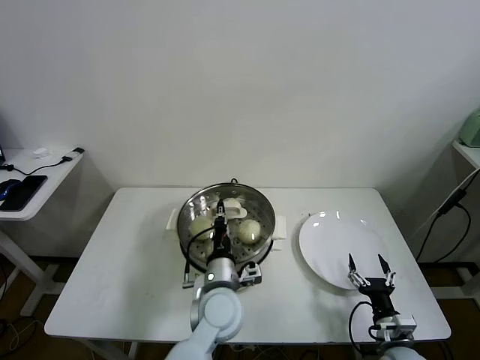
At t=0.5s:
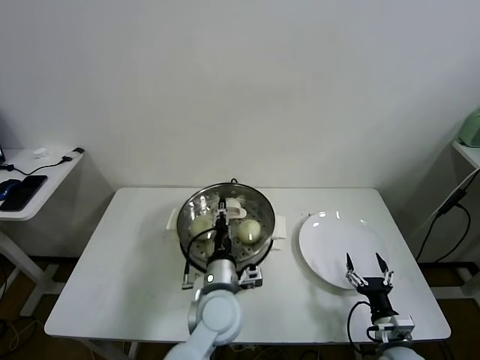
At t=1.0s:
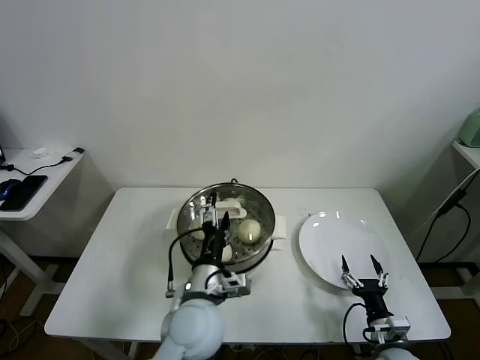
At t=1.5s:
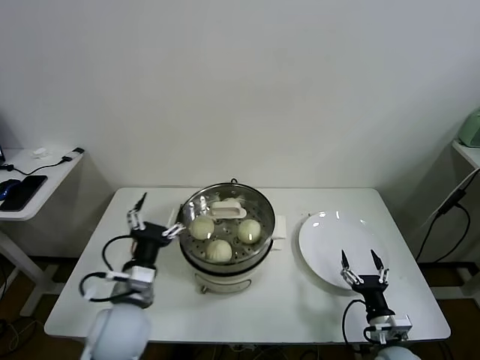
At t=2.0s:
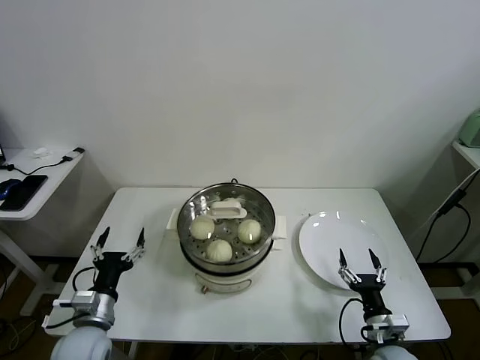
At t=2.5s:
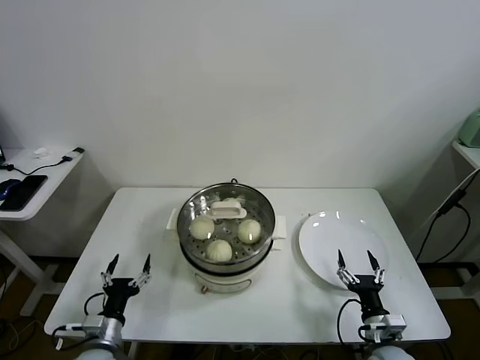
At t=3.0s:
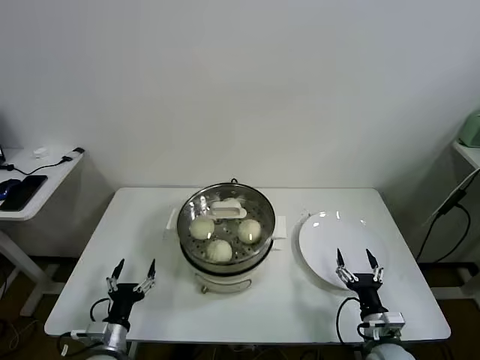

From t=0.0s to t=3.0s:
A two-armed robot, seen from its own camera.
Task of the whole recording: take steamed baozi put them in steamer.
From t=0.0s to t=1.5s: The left gripper shifts approximately 15 cm to the left, and opens.
From t=1.5s to t=3.0s: The left gripper shifts some 20 cm downward and to the left.

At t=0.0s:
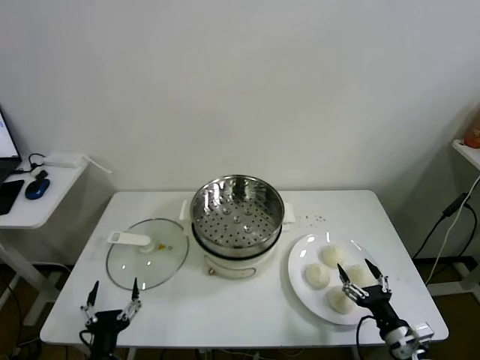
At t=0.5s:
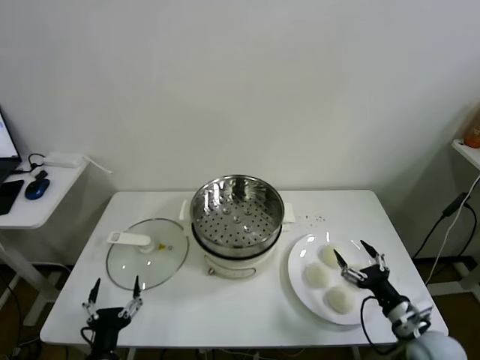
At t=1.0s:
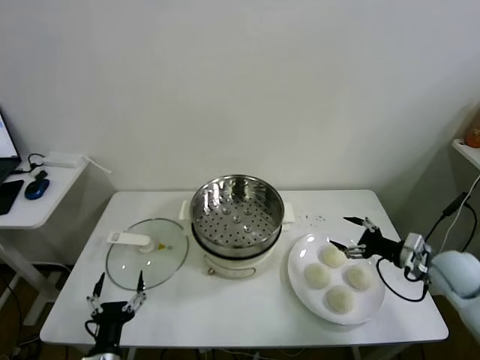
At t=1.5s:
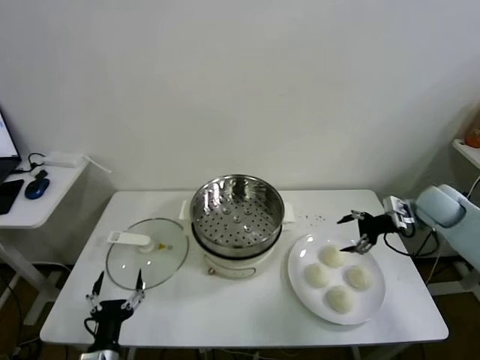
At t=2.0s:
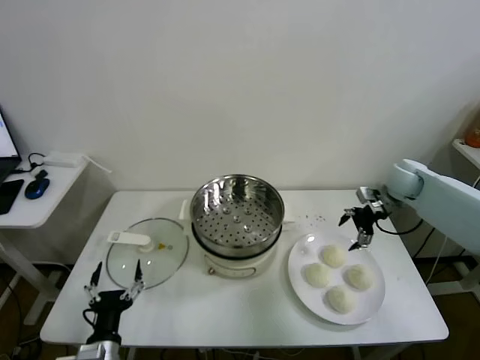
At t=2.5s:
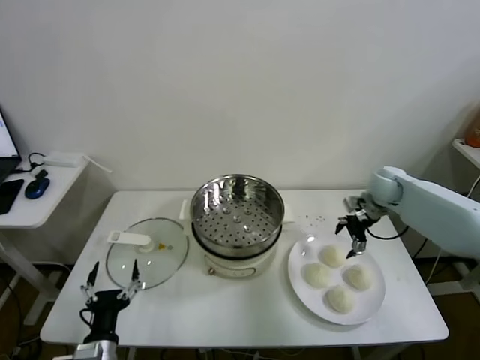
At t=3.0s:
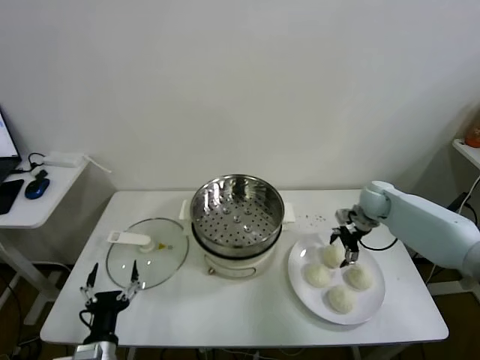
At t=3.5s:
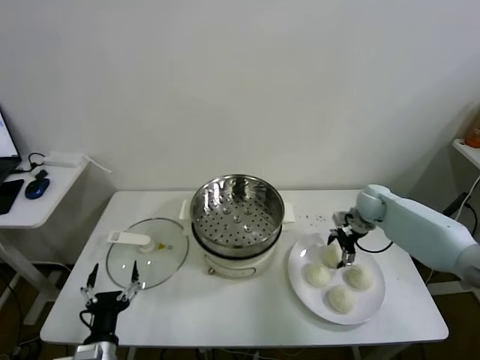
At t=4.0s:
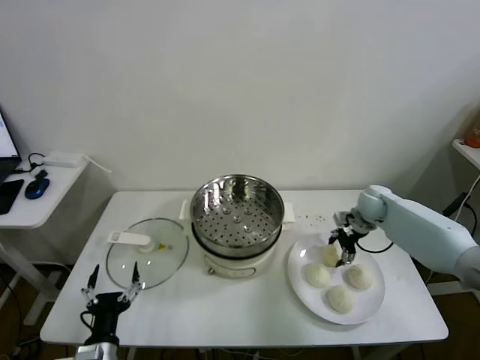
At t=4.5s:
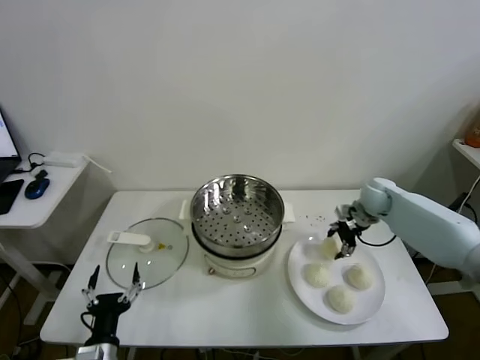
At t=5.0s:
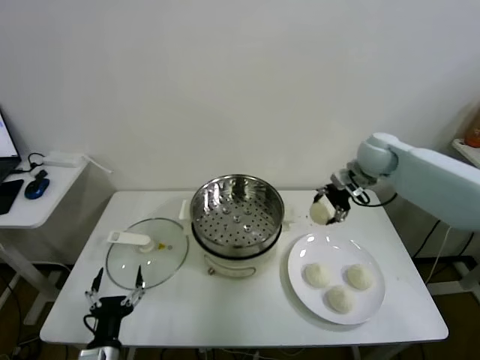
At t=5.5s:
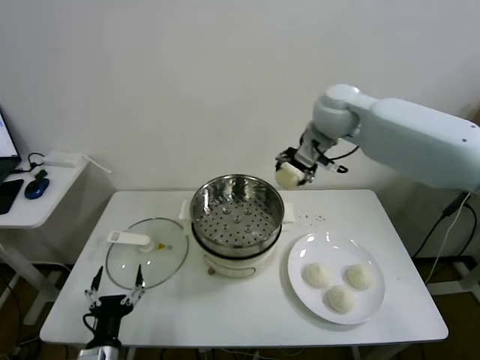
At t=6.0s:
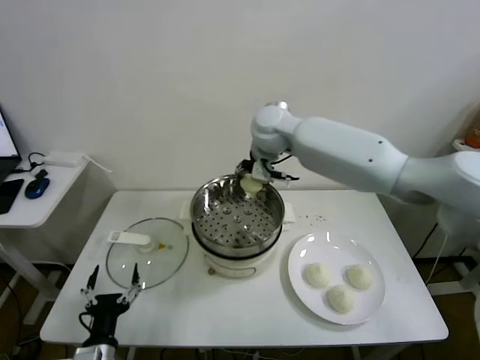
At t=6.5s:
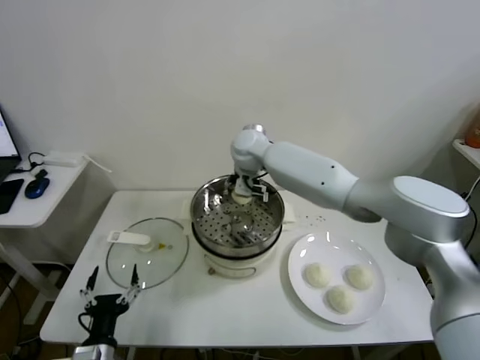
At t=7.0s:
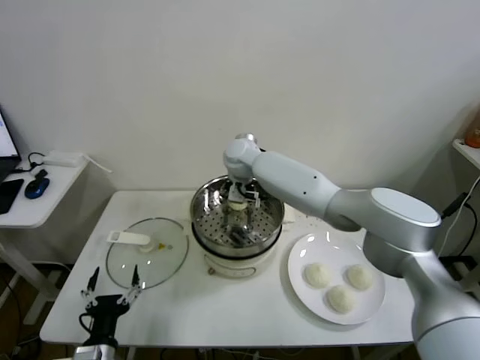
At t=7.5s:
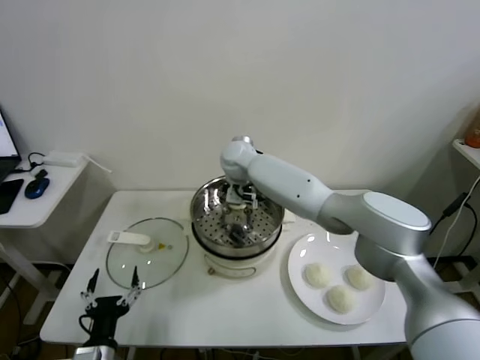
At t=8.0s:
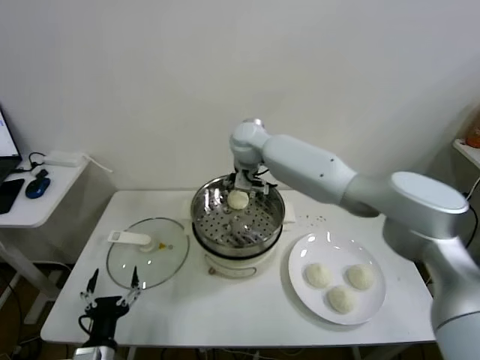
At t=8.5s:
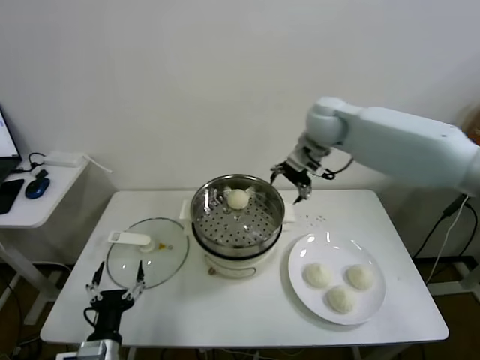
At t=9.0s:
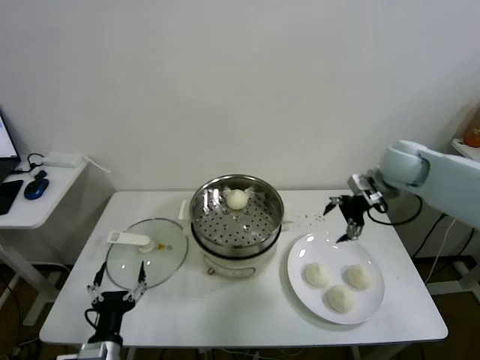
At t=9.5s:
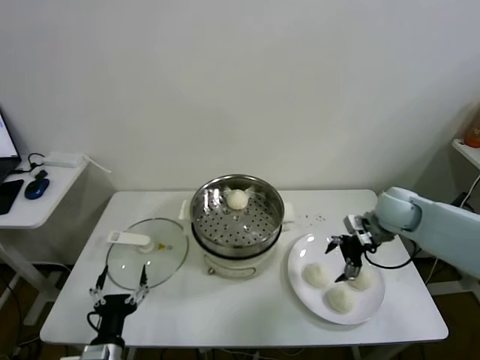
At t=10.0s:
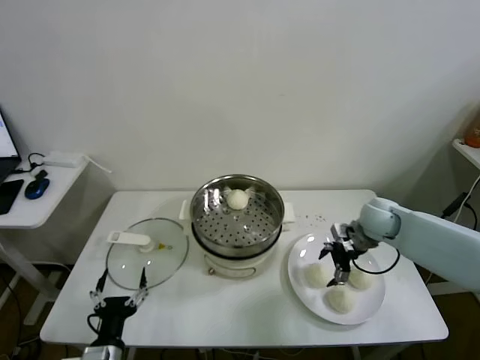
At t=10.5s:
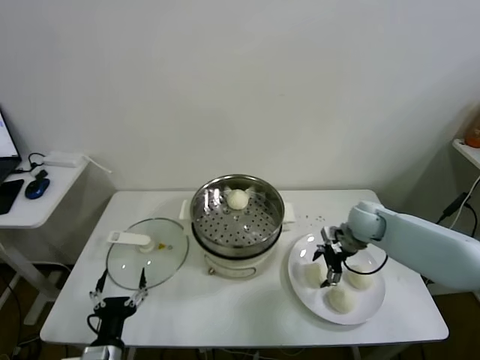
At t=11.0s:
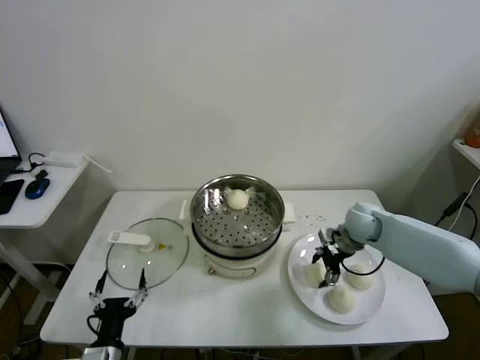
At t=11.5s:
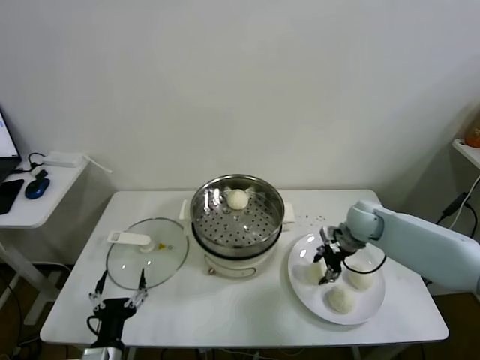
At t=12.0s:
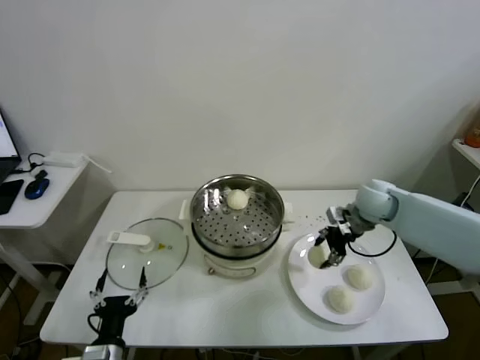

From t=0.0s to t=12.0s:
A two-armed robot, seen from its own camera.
Task of the whole recording: take steamed baozi put them in steamer.
Step, from t=0.0s to t=4.0s: Grasp the baozi in the plate with right gripper.
Step, from t=4.5s to t=7.5s: Place the baozi on the steamer with right gripper.
Step, from t=8.0s to t=11.0s: Grasp the baozi in the plate with right gripper.
From t=2.0s to t=4.0s: The right gripper heads downward, covering approximately 10 cm, and closes up.
From t=4.0s to t=6.0s: The right gripper goes approximately 40 cm to the left and upward.
From t=6.0s to t=8.0s: The right gripper reaches approximately 10 cm downward, then returns, and opens up.
From t=8.0s to t=10.0s: The right gripper shifts about 35 cm to the right and downward.
From t=10.0s to t=12.0s: The right gripper moves upward, some 5 cm, and closes.

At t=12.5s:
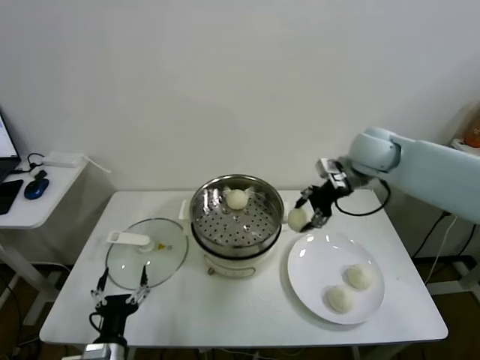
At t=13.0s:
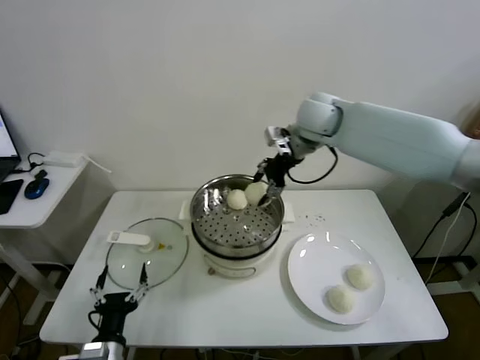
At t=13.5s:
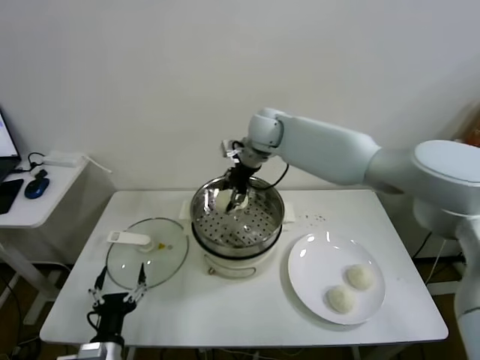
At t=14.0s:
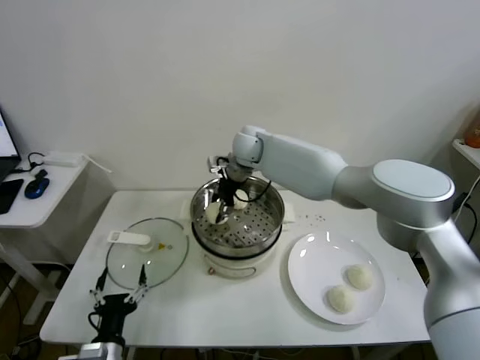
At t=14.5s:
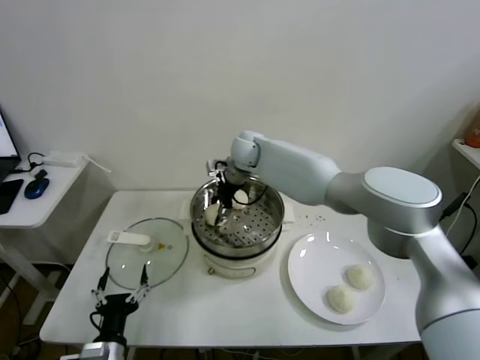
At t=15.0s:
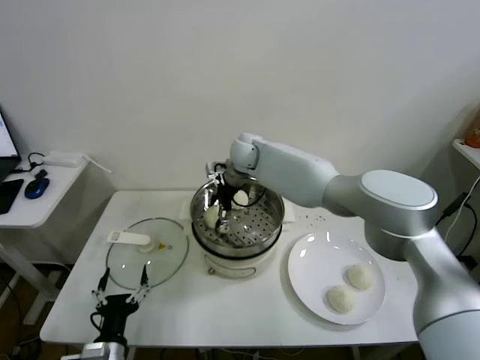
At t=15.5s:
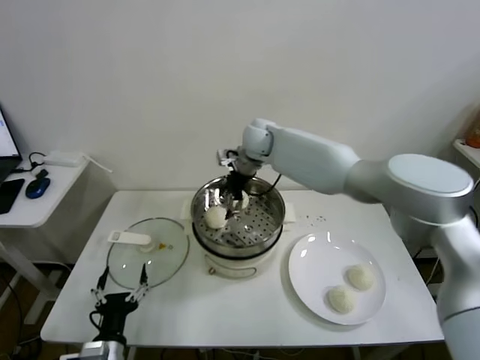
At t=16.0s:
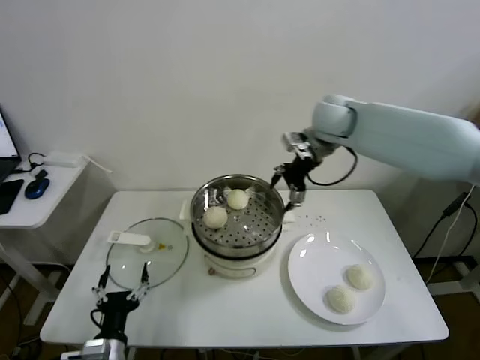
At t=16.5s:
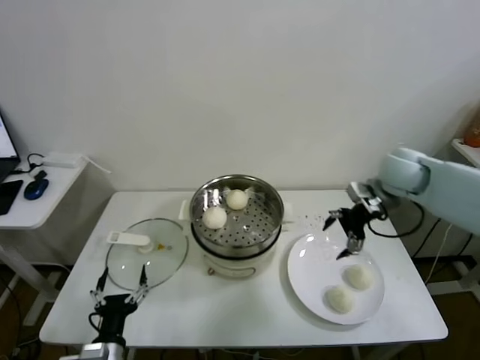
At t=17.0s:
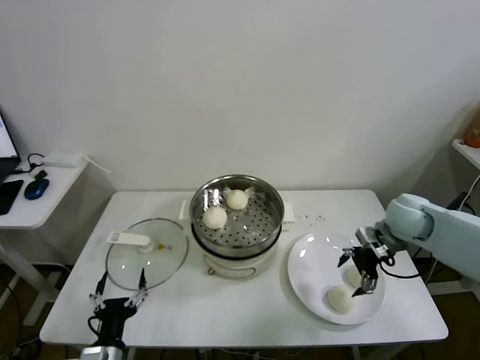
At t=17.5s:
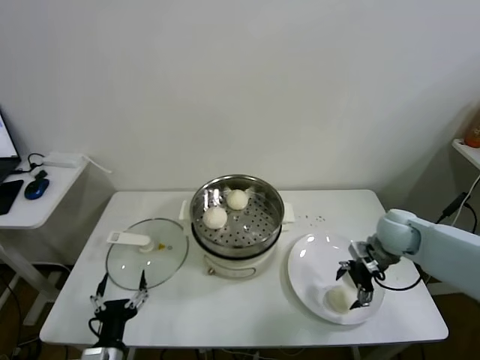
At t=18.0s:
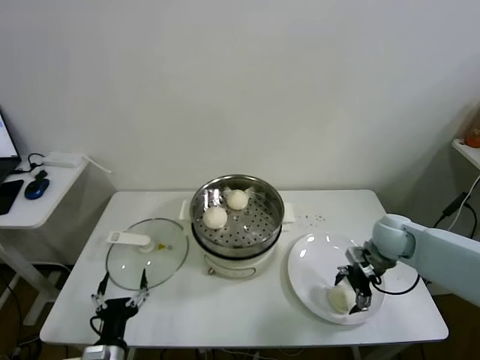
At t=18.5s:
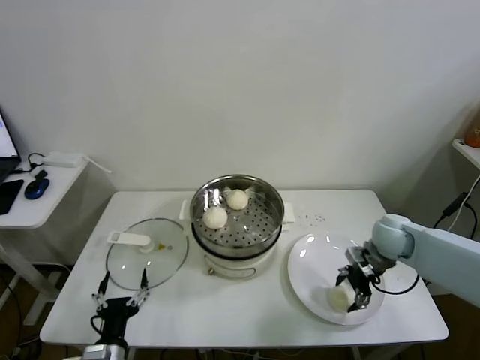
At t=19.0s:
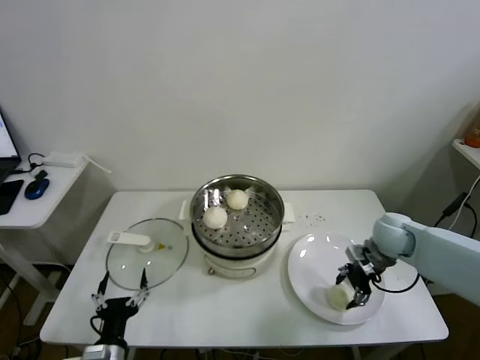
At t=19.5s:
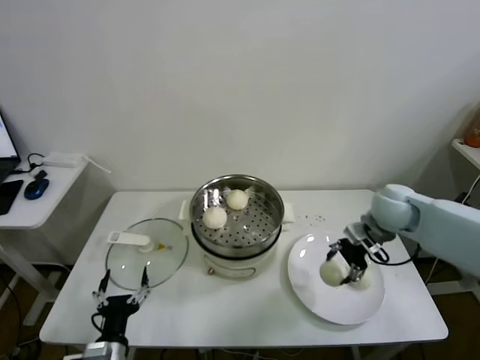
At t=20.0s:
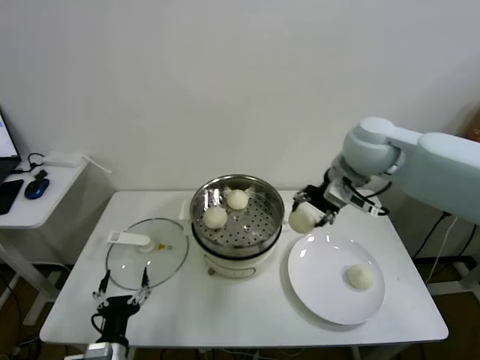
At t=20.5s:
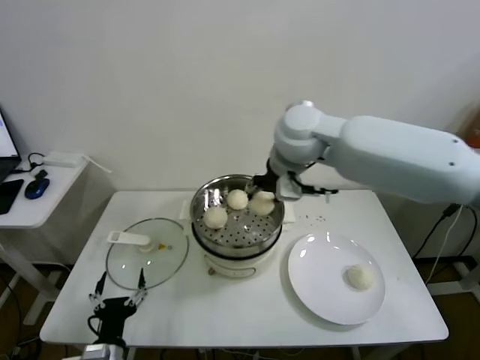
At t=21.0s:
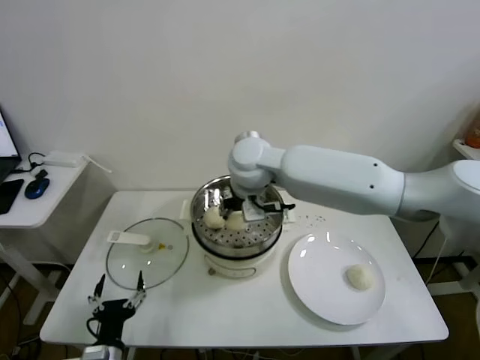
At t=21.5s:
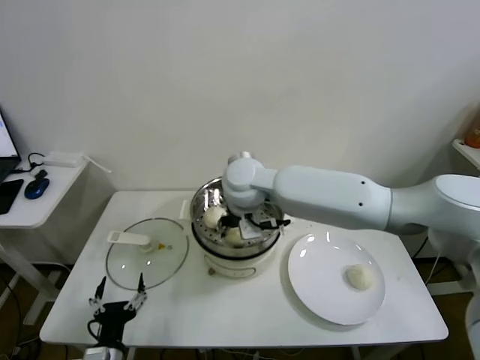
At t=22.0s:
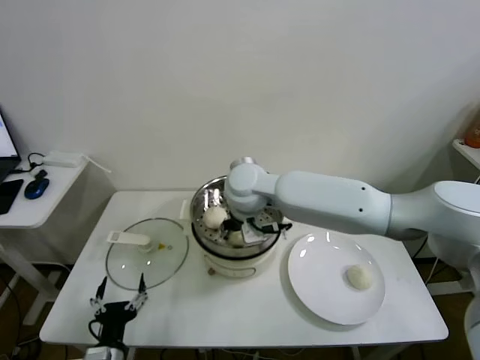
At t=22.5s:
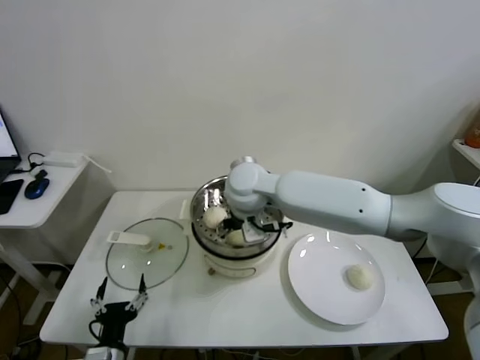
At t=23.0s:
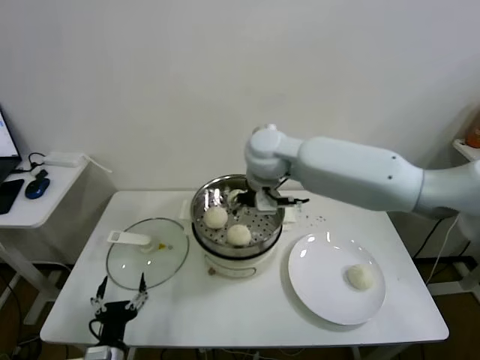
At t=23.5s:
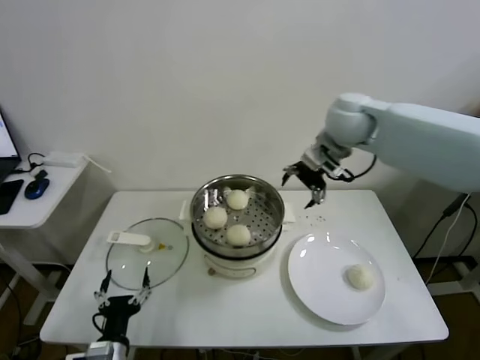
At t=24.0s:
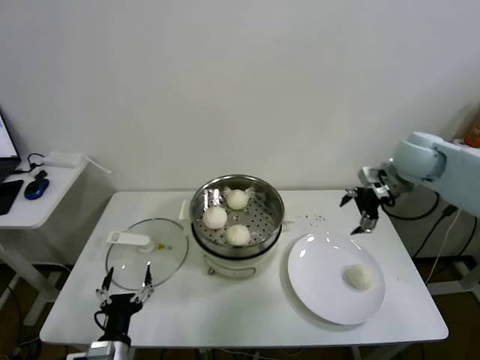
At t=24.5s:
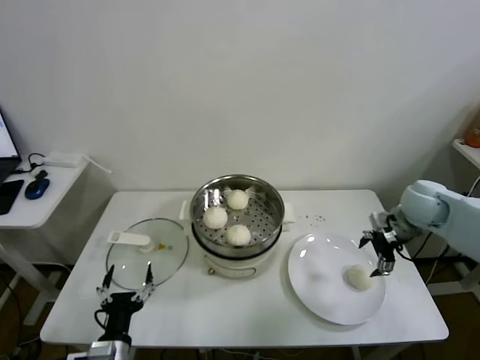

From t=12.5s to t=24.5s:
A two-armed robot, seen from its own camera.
Task of the whole recording: take steamed baozi put them in steamer.
Step, from t=12.5s to t=15.0s: Place the baozi on the steamer with right gripper.
Step, from t=15.5s to t=19.0s: Grasp the baozi in the plate with right gripper.
Step, from t=19.5s to t=22.5s: Place the baozi on the steamer with right gripper.
From t=12.5s to t=14.5s: The right gripper is displaced to the left by roughly 25 cm.
From t=14.5s to t=16.5s: The right gripper is displaced to the right by approximately 35 cm, and opens.
From t=16.5s to t=18.5s: The right gripper moves downward, some 15 cm, and closes its fingers.
From t=18.5s to t=20.5s: The right gripper is displaced upward and to the left by approximately 40 cm.
From t=20.5s to t=22.5s: The right gripper goes roughly 15 cm downward and to the left, and opens.
From t=22.5s to t=24.5s: The right gripper shifts about 40 cm to the right.
